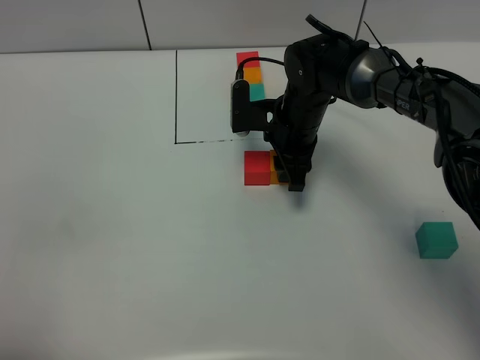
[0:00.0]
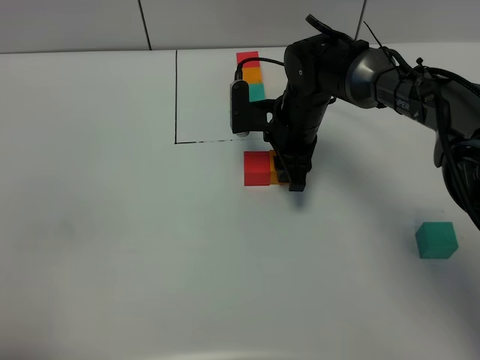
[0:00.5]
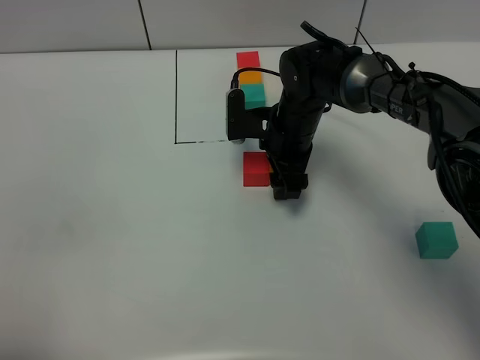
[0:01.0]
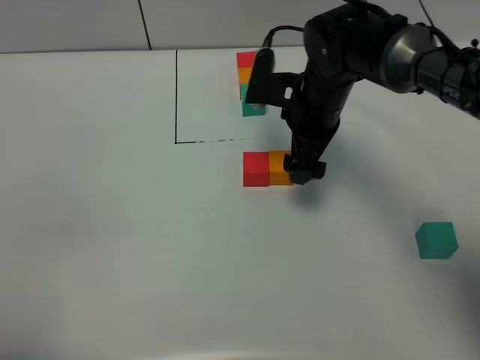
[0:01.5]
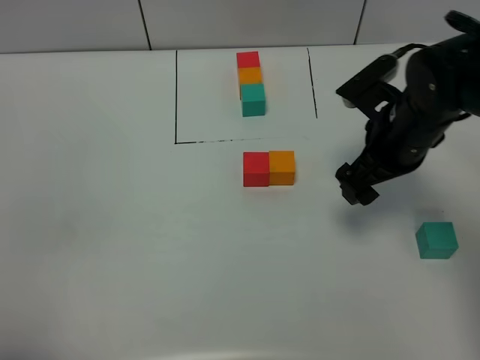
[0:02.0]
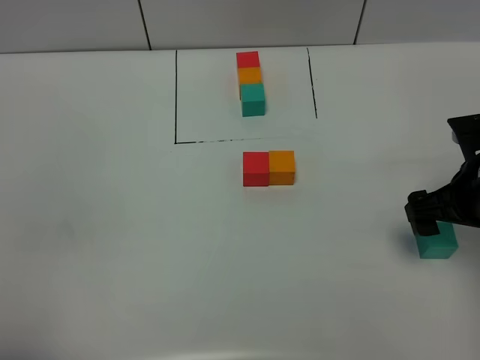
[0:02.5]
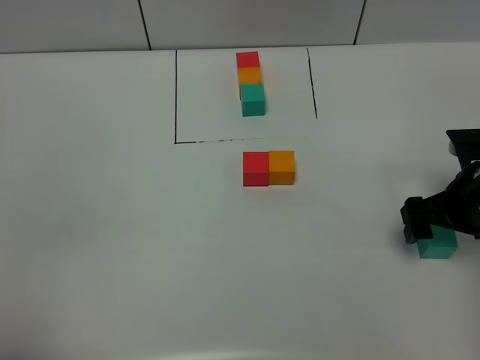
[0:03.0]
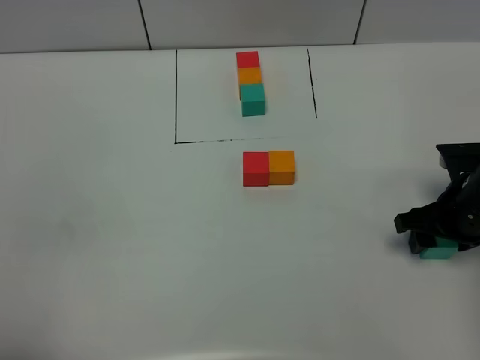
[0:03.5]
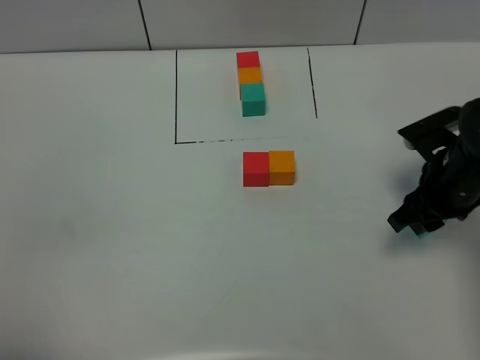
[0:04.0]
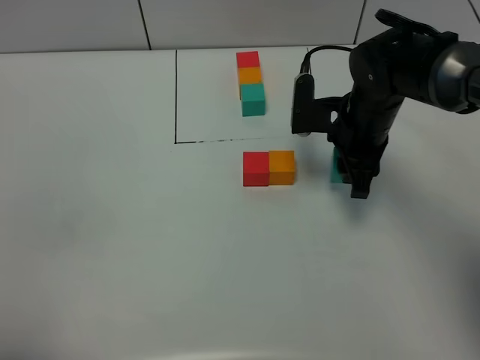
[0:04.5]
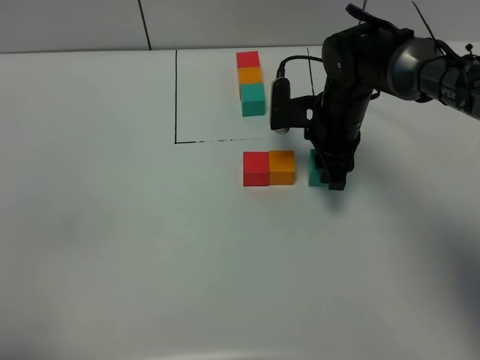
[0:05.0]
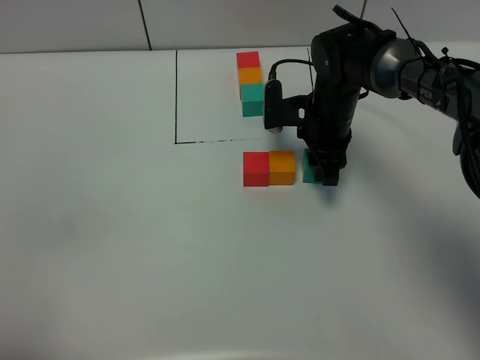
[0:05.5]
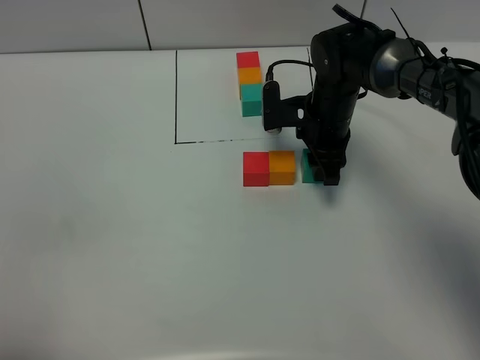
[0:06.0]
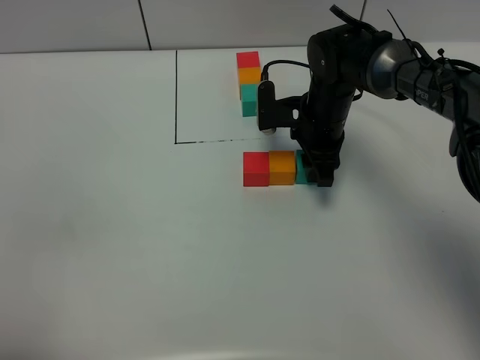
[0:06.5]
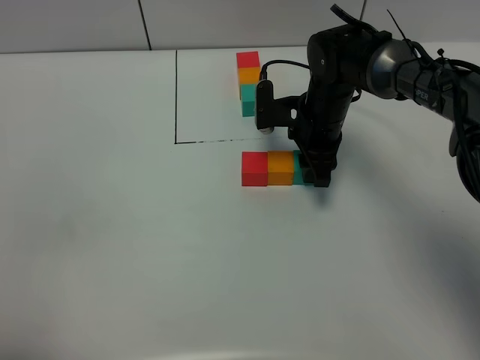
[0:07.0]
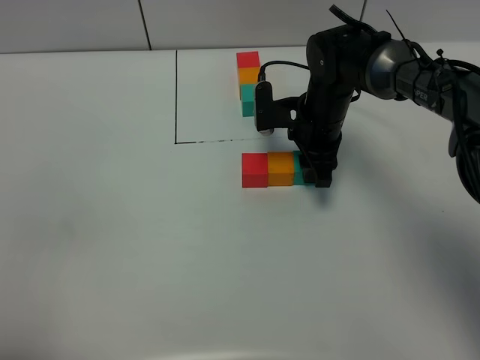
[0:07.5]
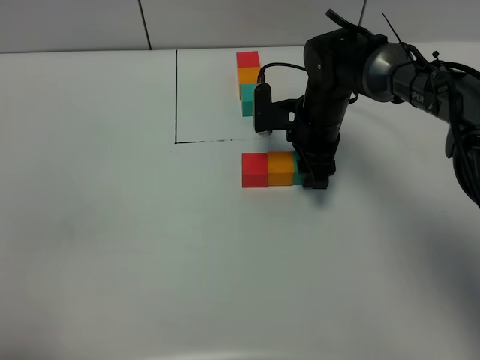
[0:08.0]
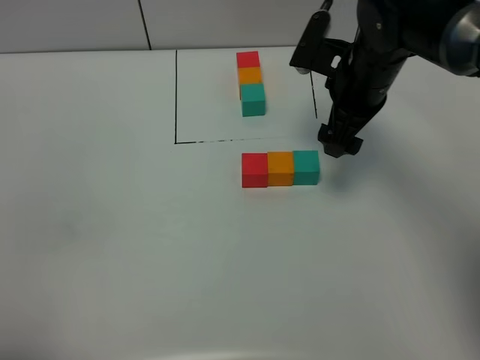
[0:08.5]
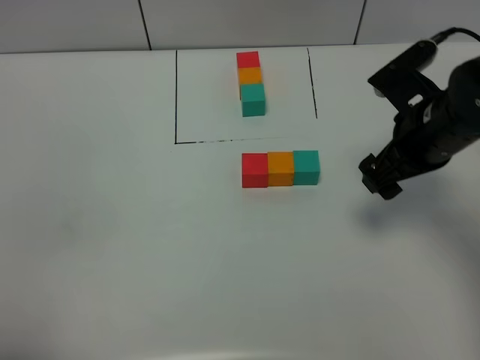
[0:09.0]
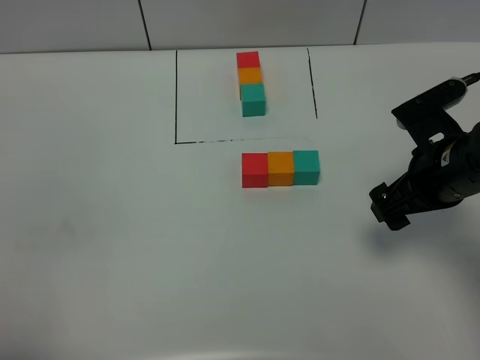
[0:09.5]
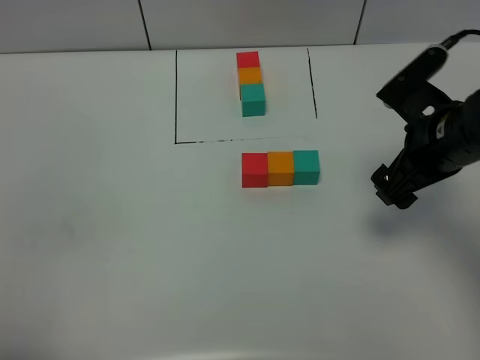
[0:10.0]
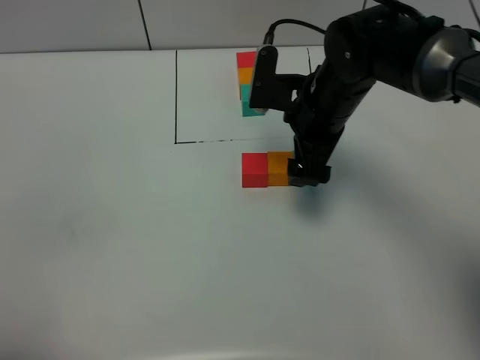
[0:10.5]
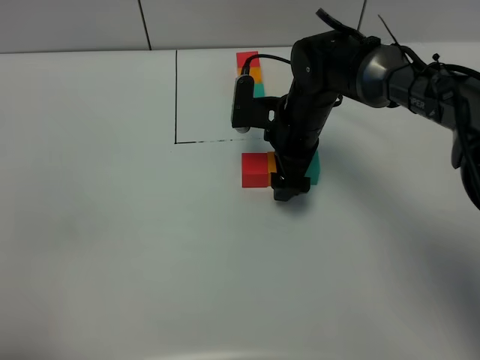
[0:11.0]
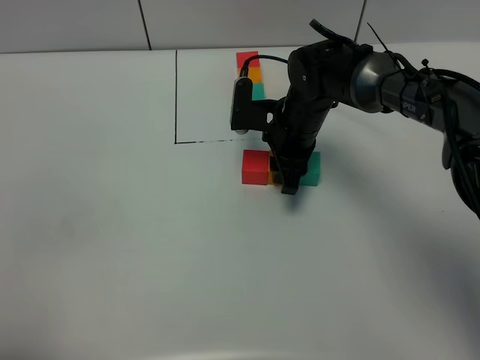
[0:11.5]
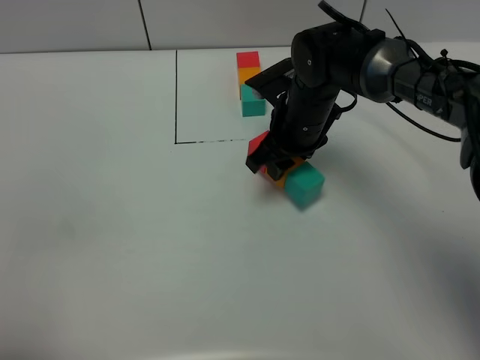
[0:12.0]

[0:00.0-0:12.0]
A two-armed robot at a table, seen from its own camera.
Task of the whole recording: According to the building block template in front, assemble the scattered blocks together.
Step, 0:01.5 to 0:07.5: Put the green build block on the right of the orange build block.
0:00.0 to 0:02.0: The right gripper travels to the right, backward and upward by about 15 cm, and opens up.
0:02.0 to 0:04.0: The right gripper moves to the right, approximately 5 cm, and closes up.
0:04.0 to 0:06.0: The right gripper heads forward and to the left, covering some 20 cm.
0:06.0 to 0:08.0: Both grippers stay put.
0:08.0 to 0:10.0: The right gripper travels backward, to the right and upward by roughly 20 cm, and opens up.
0:10.0 to 0:12.0: The right gripper heads to the left, forward and downward, covering roughly 20 cm, and closes.

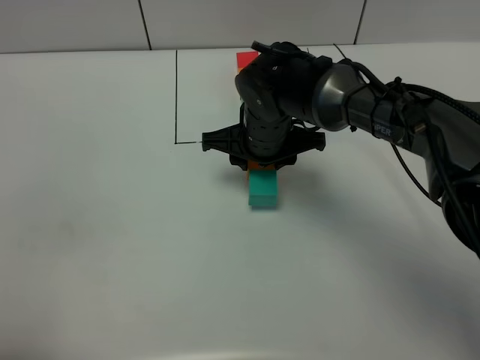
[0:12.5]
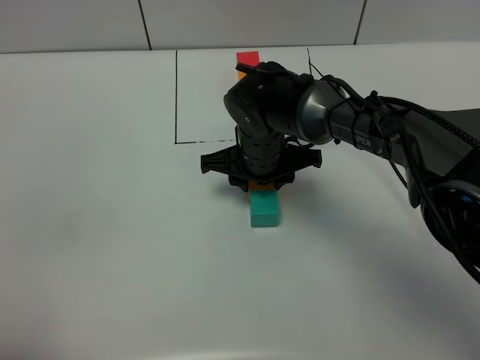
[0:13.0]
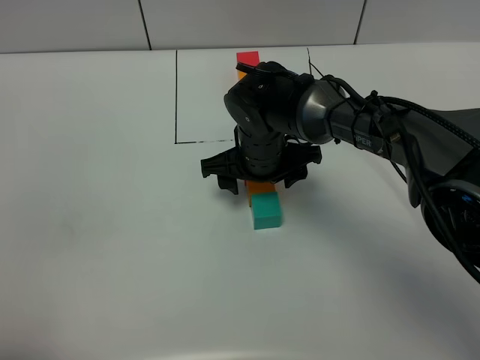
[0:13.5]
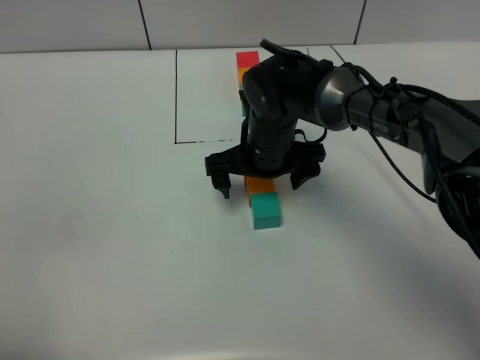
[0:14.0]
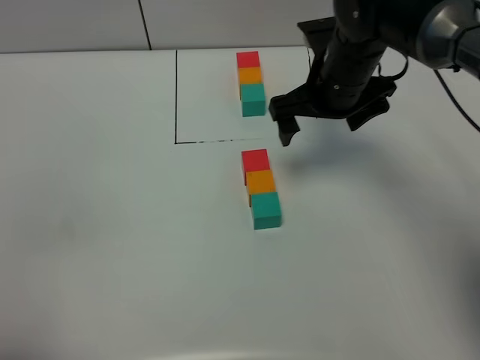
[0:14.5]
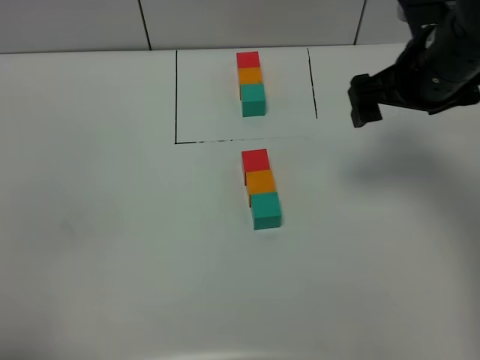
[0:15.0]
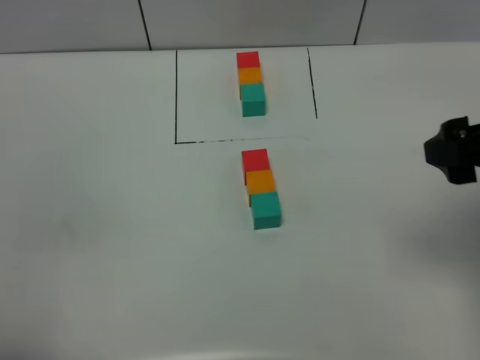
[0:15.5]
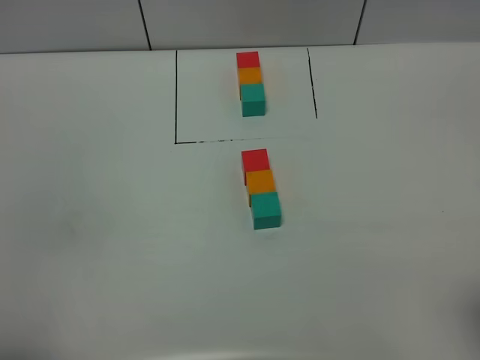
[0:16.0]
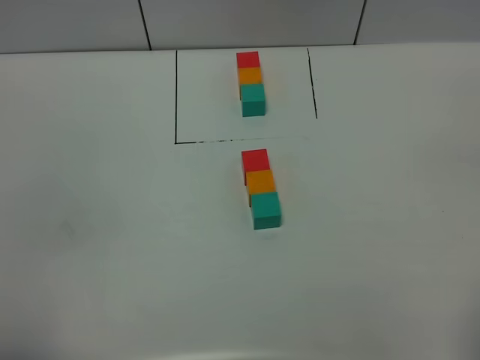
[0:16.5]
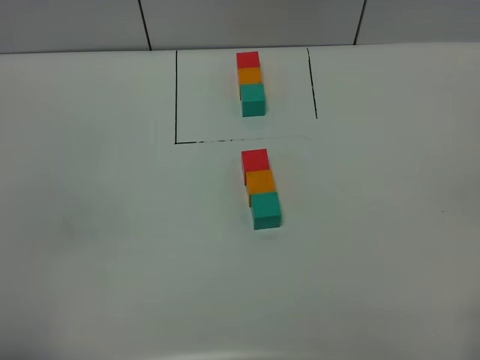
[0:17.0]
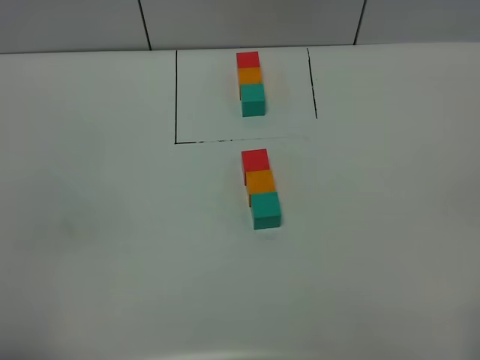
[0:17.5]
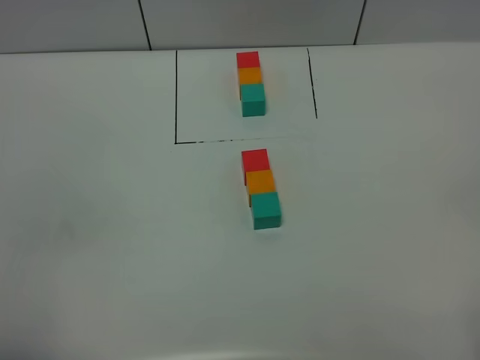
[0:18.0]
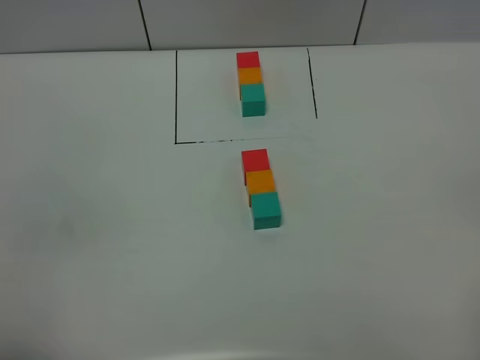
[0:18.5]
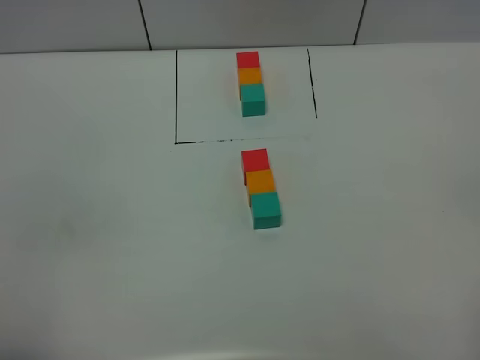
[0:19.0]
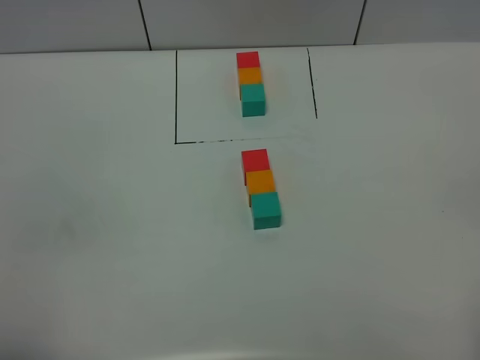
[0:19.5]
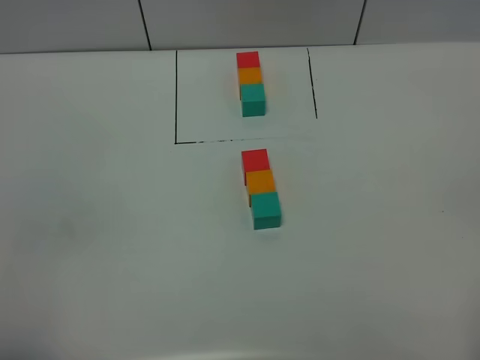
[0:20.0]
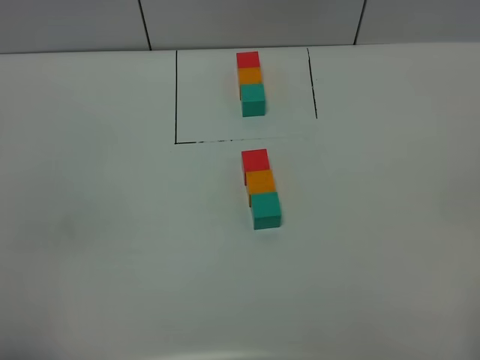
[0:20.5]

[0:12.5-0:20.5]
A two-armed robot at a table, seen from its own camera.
Task of the whole recording: According to the building block template in front, assemble the scattered blocks together.
0:12.5 to 0:14.5: The right gripper shifts roughly 10 cm to the right and upward, and opens up.
0:14.5 to 0:16.5: The right gripper travels backward by some 40 cm.
